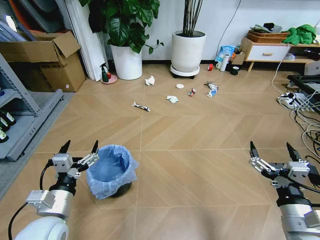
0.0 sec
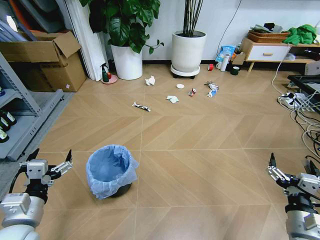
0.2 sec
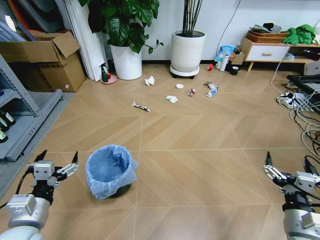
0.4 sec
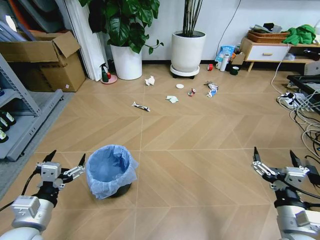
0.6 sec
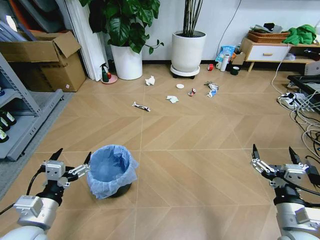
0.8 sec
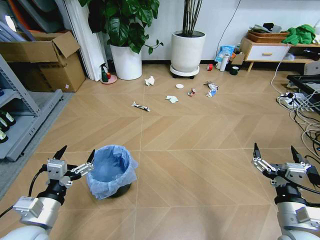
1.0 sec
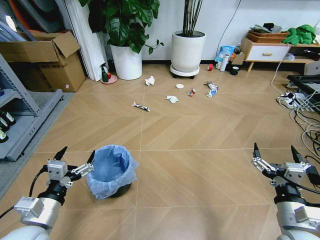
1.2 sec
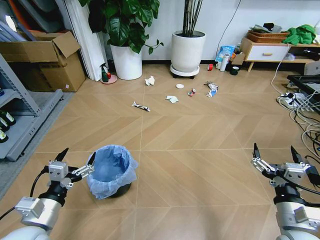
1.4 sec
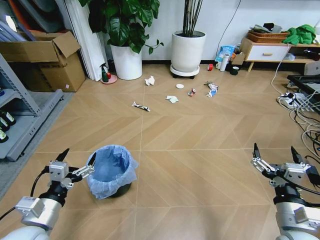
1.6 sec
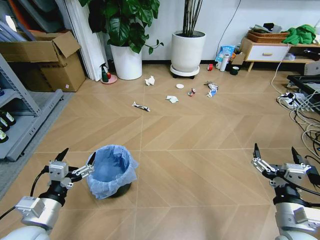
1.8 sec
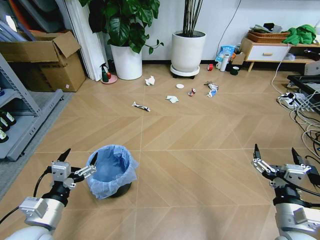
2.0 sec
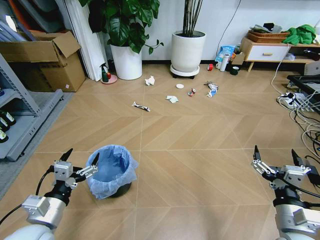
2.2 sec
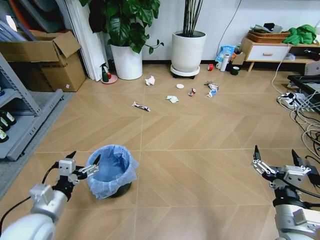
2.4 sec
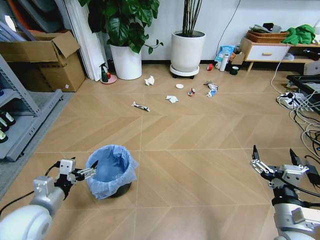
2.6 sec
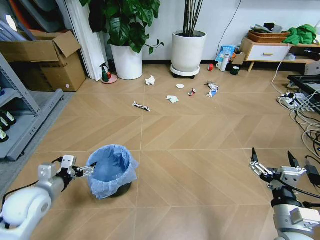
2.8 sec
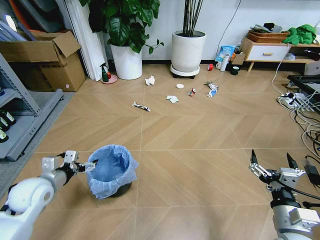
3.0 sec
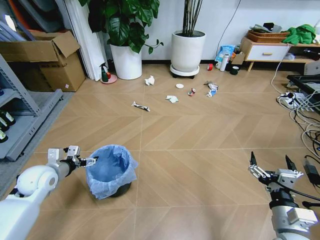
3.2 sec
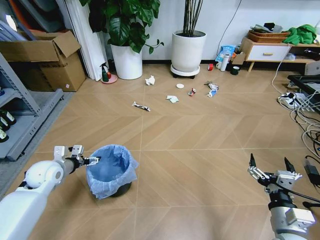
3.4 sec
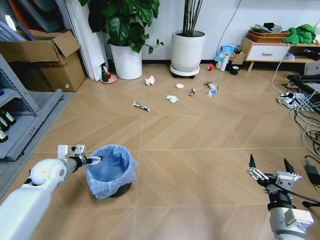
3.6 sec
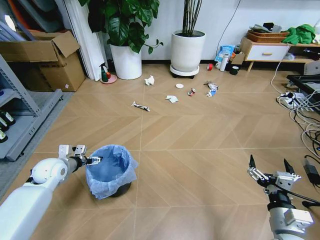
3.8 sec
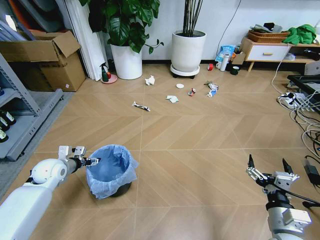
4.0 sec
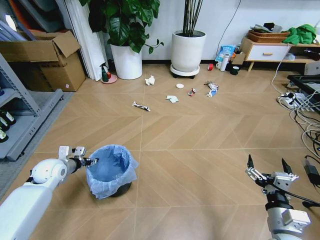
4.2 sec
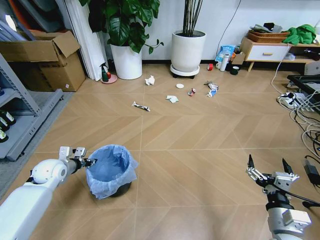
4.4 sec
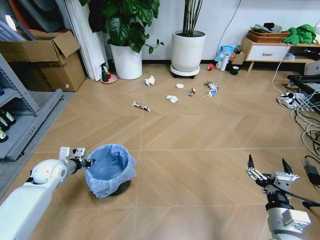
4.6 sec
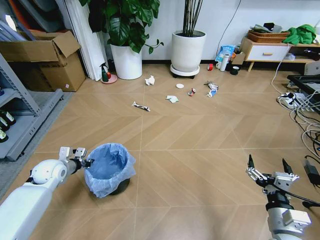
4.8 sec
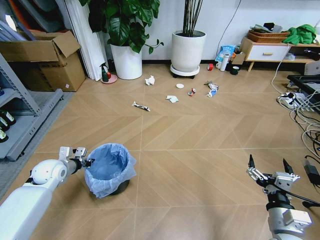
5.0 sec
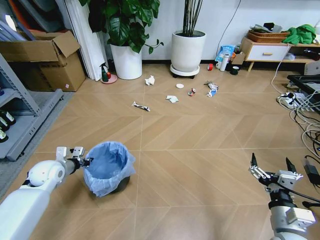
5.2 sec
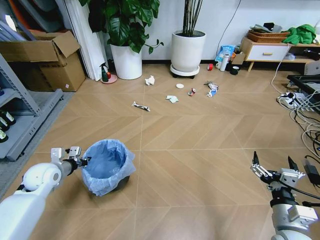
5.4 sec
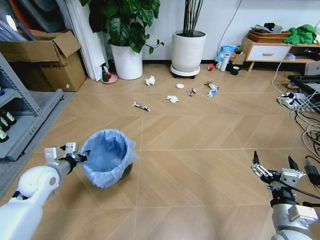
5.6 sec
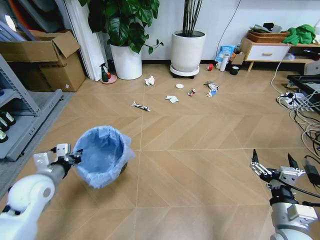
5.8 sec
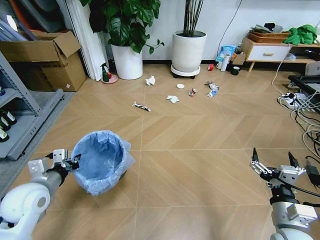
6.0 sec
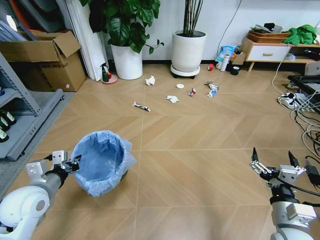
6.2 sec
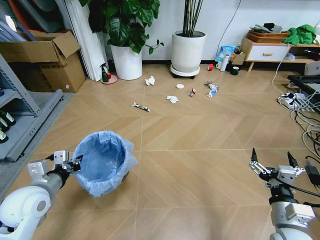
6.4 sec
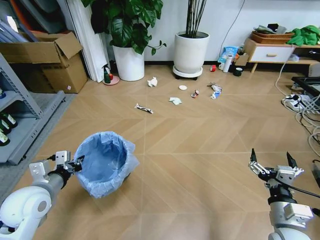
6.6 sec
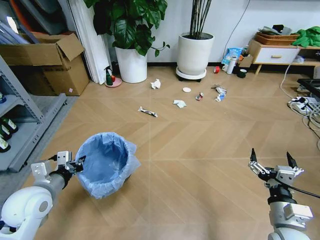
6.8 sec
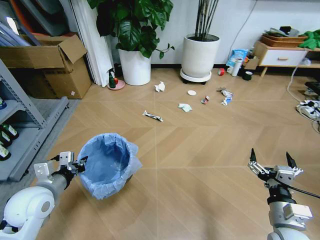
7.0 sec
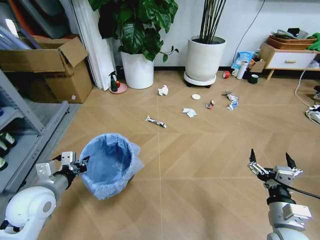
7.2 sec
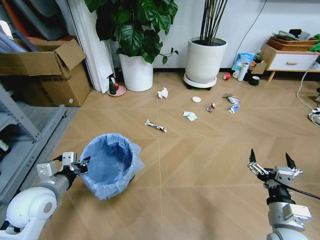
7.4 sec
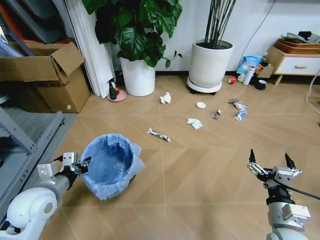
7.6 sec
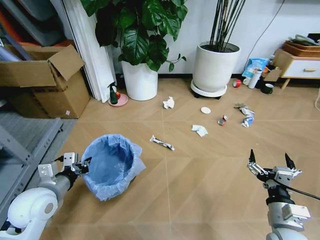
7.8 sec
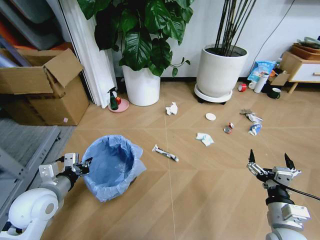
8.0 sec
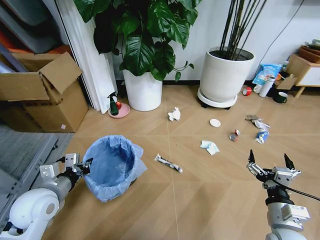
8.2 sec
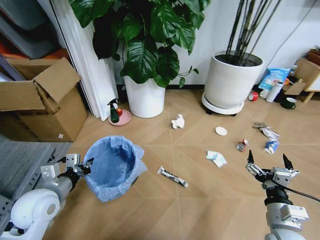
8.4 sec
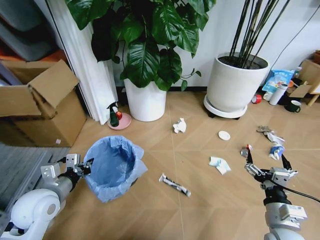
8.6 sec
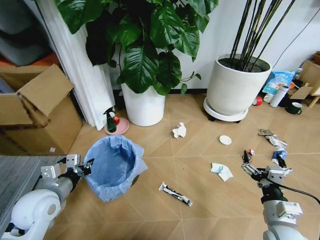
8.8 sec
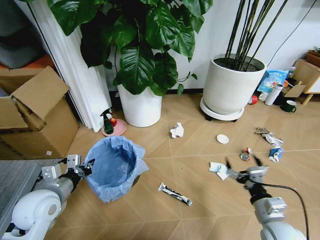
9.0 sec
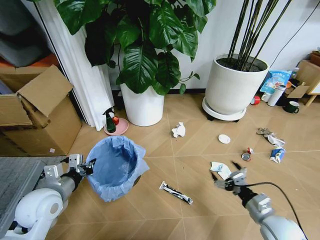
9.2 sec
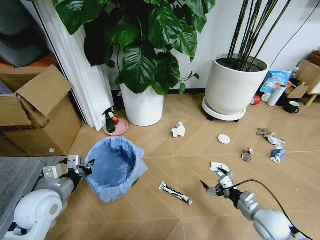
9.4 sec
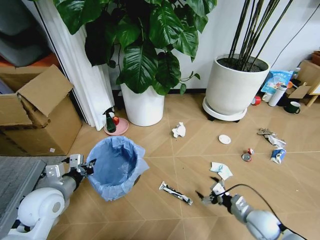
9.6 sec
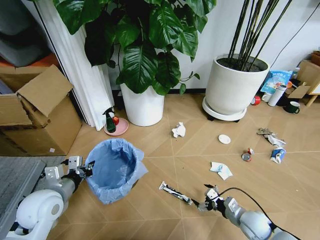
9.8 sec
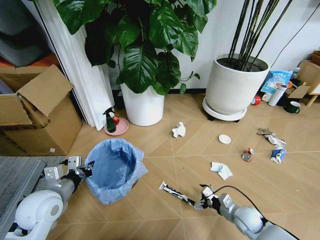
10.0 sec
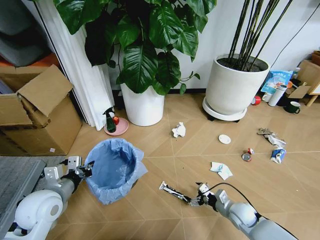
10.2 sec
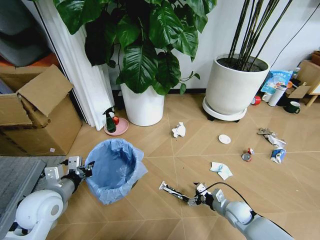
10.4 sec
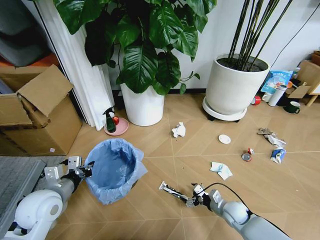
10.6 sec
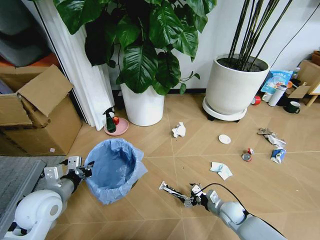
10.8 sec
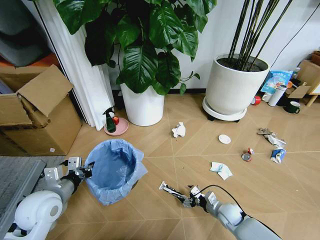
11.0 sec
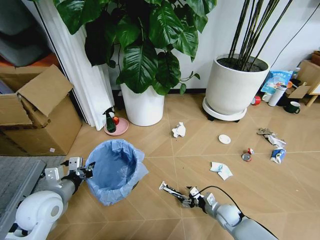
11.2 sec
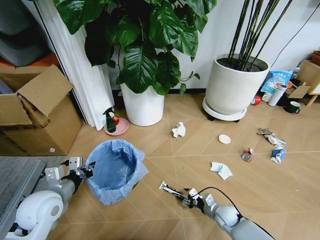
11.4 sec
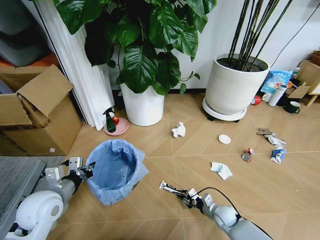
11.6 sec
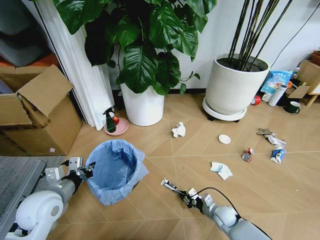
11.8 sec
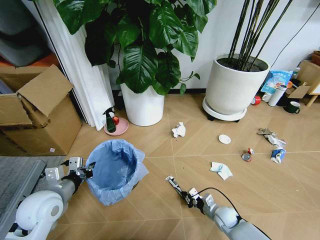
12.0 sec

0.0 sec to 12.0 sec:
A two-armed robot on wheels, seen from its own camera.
Task of the whole recording: Pick up the trash bin and place the garbage on the floor into it.
1.6 sec to 3.0 sec: The left gripper heads forward and to the left, covering about 15 cm.
3.0 sec to 4.4 sec: The left gripper moves forward and downward, some 10 cm, and closes up.
4.4 sec to 6.0 sec: The left gripper moves backward and upward, approximately 15 cm, and closes up.
9.0 sec to 10.4 sec: The right gripper moves downward and forward, approximately 20 cm.
10.4 sec to 12.0 sec: The right gripper is displaced downward by some 5 cm, and closes.

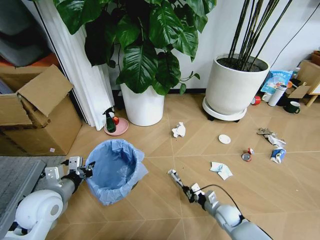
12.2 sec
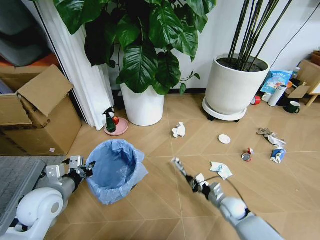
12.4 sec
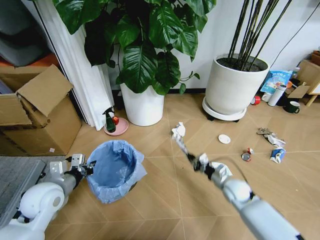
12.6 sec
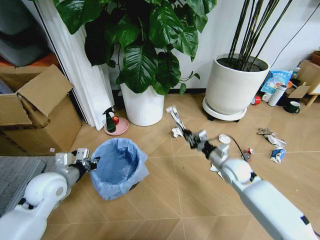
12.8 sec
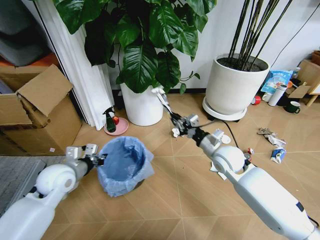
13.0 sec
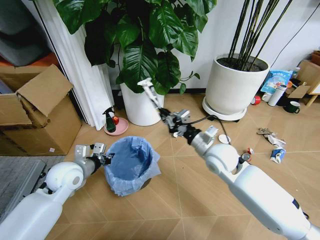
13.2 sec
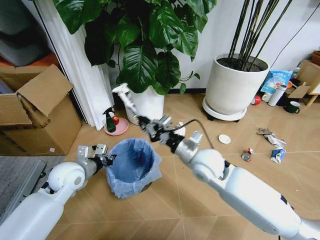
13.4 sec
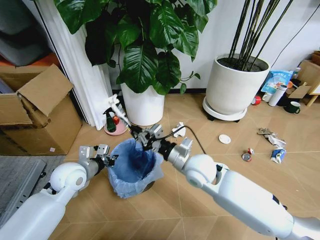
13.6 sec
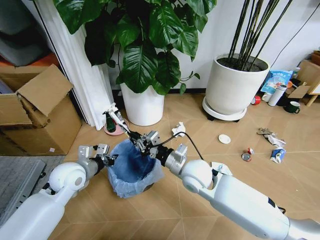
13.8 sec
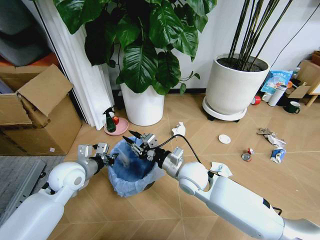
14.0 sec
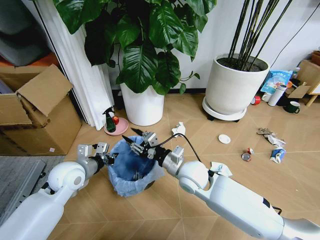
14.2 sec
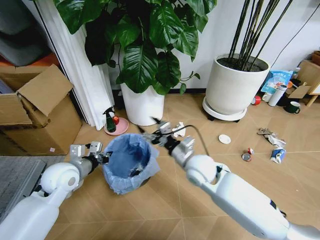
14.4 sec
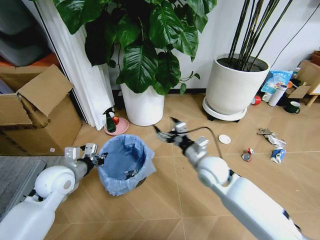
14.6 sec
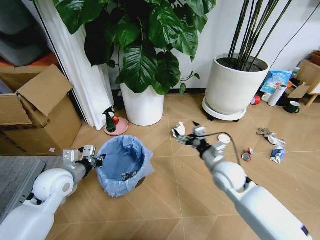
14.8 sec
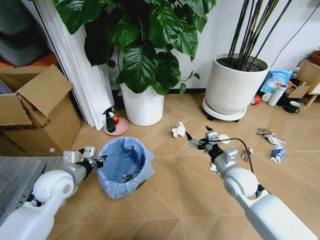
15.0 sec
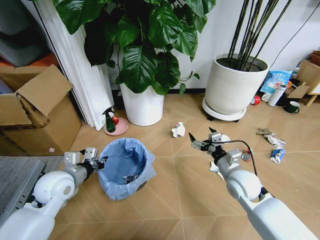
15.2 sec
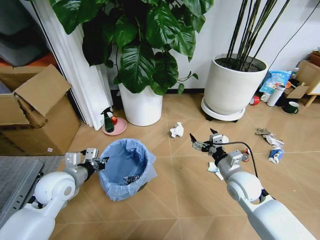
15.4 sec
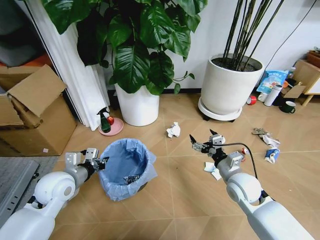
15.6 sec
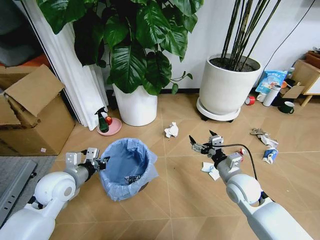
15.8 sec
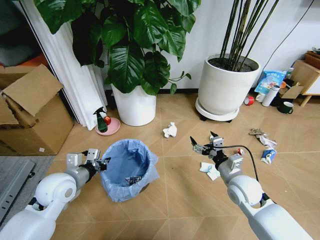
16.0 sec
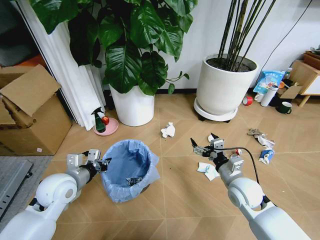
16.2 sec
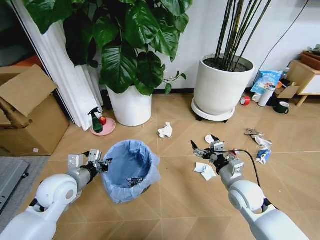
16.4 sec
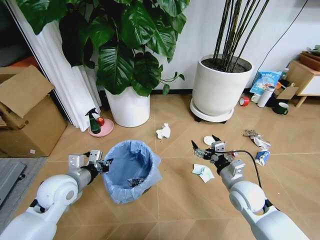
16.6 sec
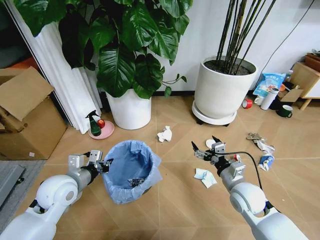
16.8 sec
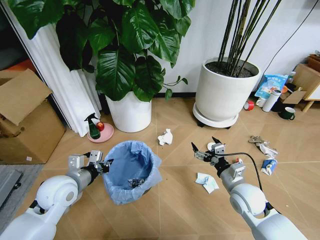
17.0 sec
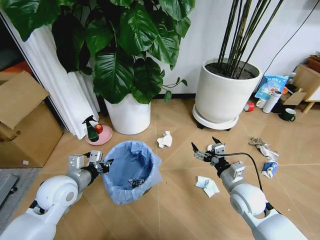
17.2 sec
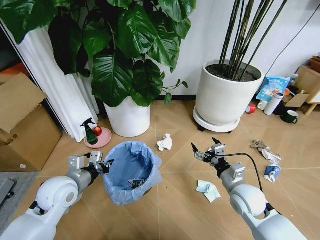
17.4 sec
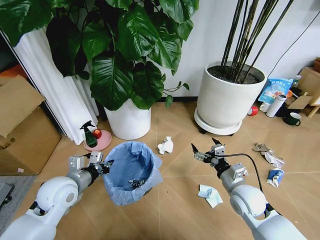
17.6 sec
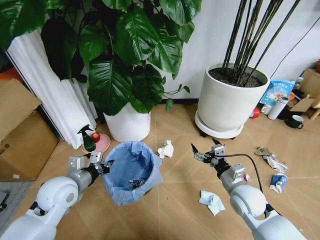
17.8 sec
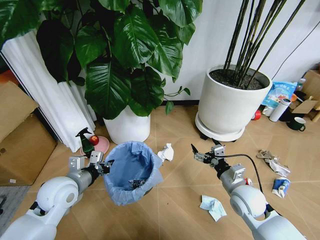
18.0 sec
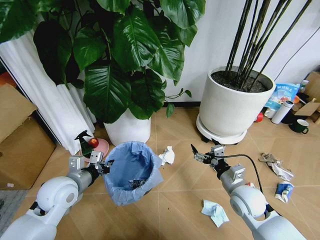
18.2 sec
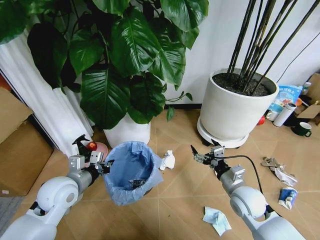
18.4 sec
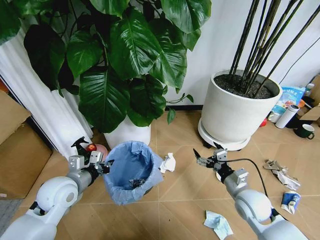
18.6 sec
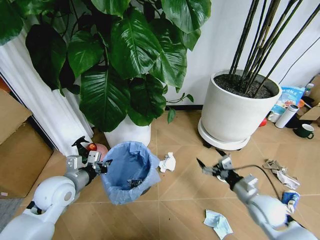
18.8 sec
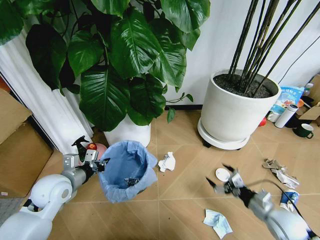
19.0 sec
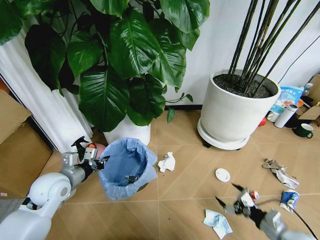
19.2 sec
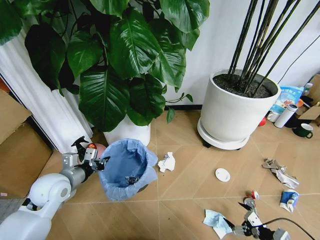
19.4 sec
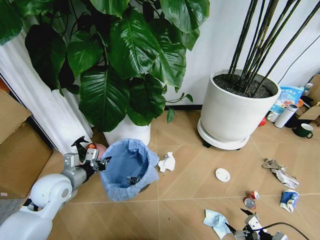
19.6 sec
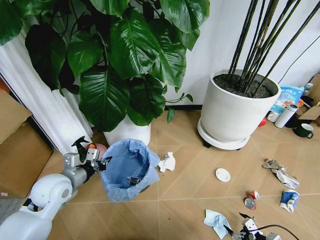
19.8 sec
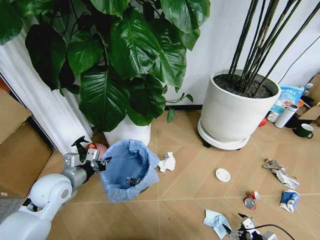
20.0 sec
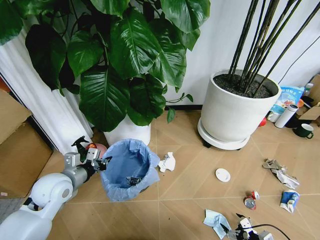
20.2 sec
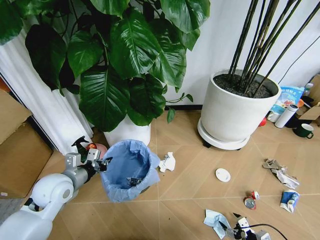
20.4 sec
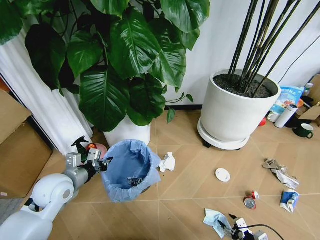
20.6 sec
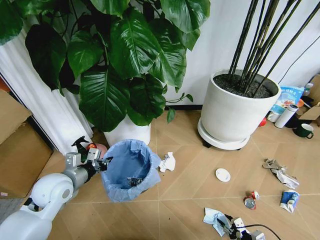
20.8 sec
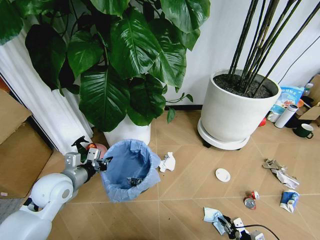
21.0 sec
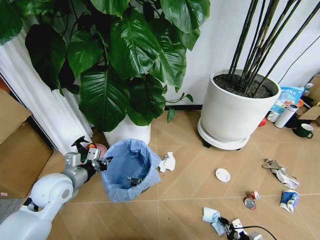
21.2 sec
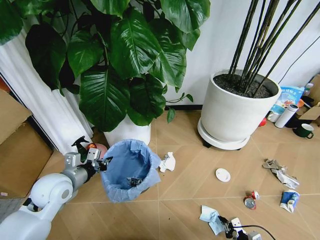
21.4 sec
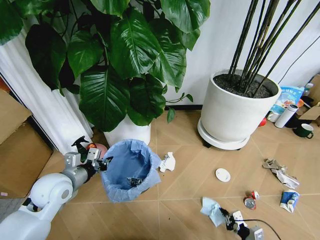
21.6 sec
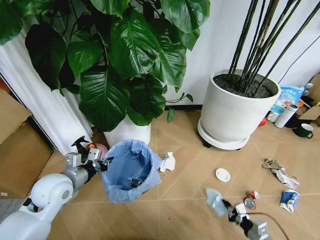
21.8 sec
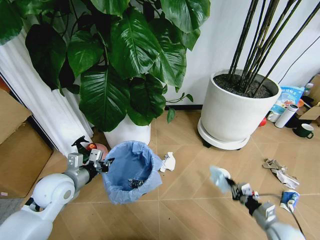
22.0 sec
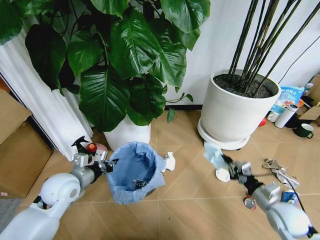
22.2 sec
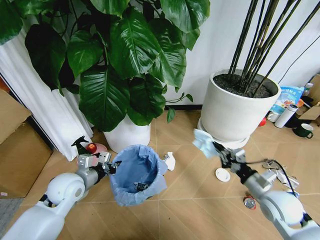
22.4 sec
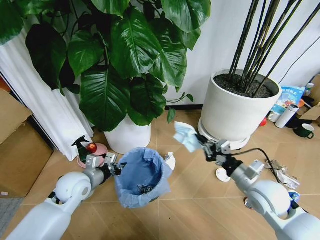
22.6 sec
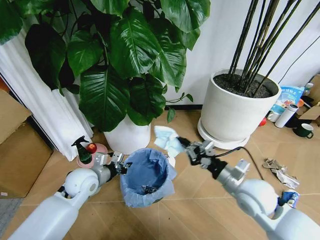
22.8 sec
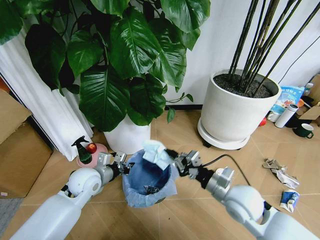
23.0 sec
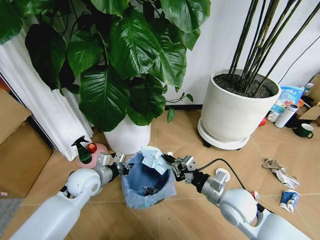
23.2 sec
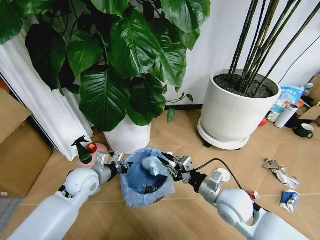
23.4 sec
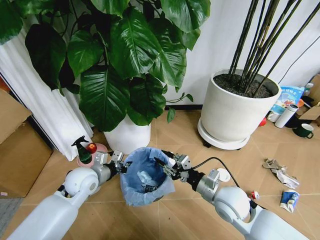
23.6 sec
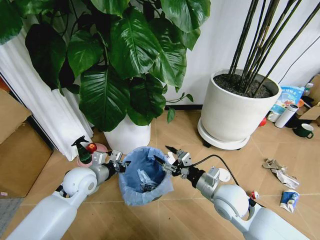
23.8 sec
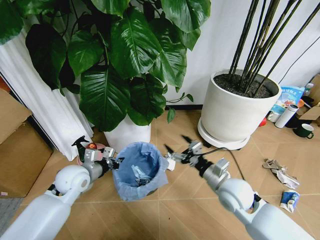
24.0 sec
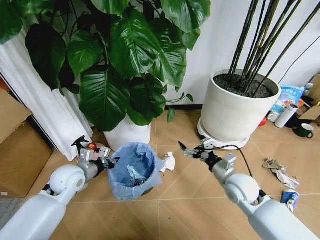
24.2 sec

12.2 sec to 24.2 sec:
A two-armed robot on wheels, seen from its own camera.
Task of the whole recording: Pick up the trash bin and place the garbage on the floor into it.
12.2 sec to 13.8 sec: The left gripper moves forward, about 10 cm; the right gripper shifts roughly 30 cm upward and to the left.
13.8 sec to 15.2 sec: The right gripper is displaced to the right by some 15 cm, and opens its fingers.
18.2 sec to 19.8 sec: The right gripper moves backward, to the right and downward, about 30 cm.
19.8 sec to 21.2 sec: The right gripper travels downward by about 5 cm, and closes its fingers.
21.2 sec to 22.6 sec: The right gripper is displaced upward and forward by approximately 30 cm. Meanwhile the left gripper shifts by some 5 cm.
22.6 sec to 24.2 sec: The right gripper changes place by approximately 10 cm, and opens its fingers.
